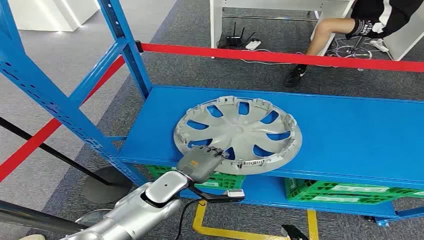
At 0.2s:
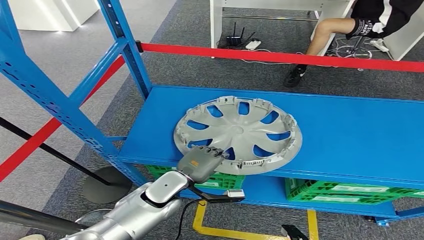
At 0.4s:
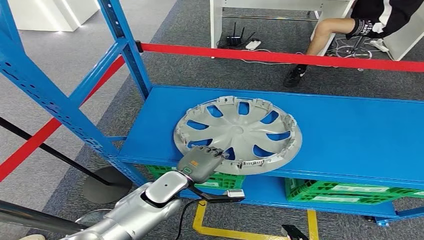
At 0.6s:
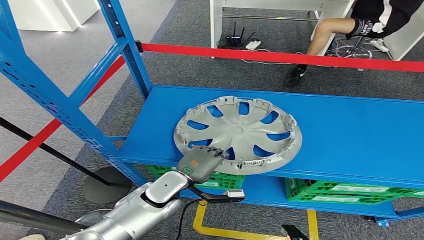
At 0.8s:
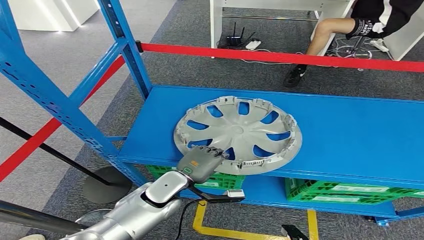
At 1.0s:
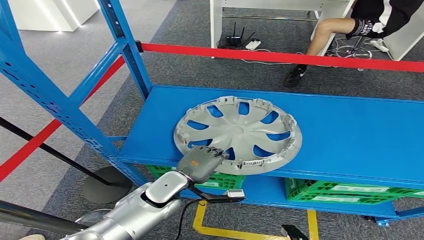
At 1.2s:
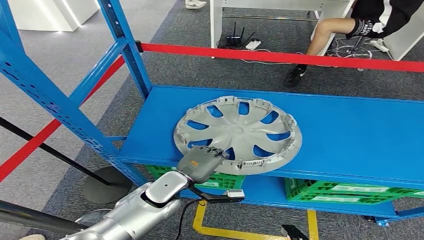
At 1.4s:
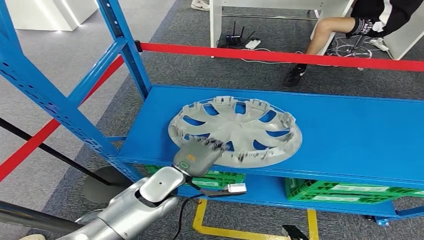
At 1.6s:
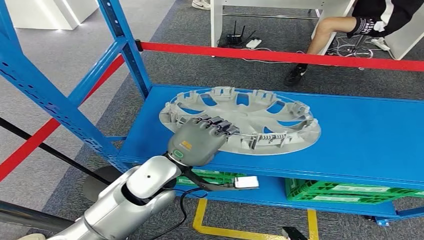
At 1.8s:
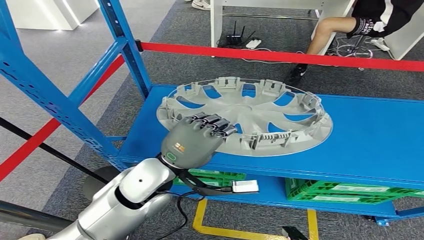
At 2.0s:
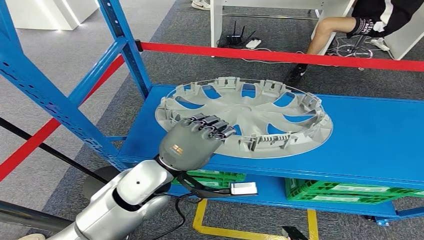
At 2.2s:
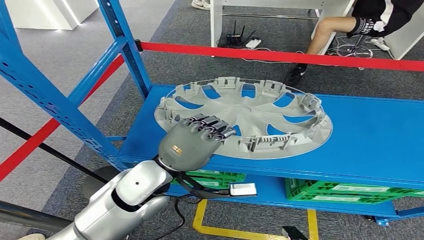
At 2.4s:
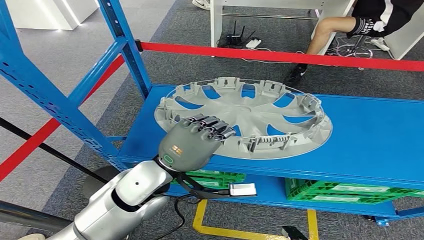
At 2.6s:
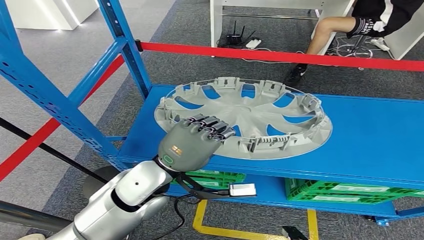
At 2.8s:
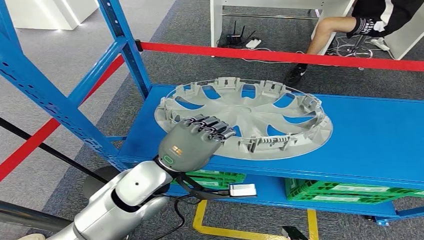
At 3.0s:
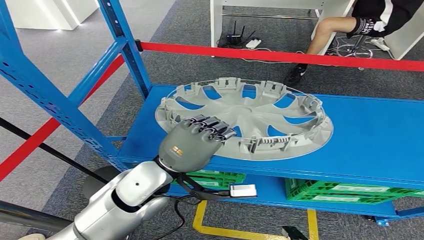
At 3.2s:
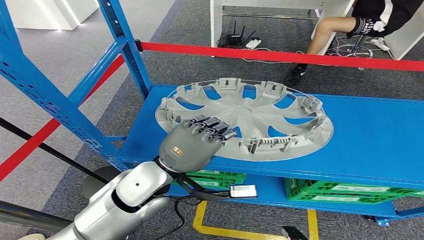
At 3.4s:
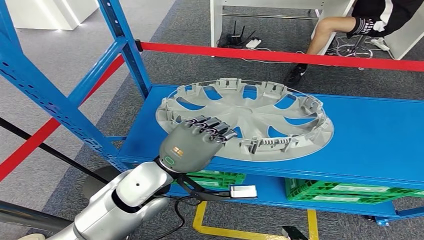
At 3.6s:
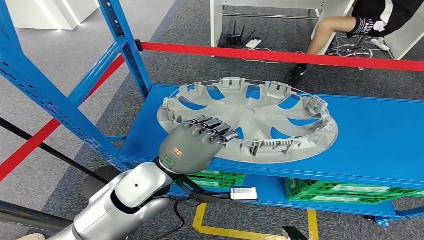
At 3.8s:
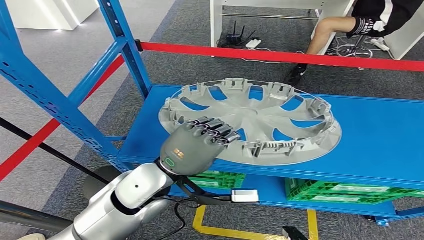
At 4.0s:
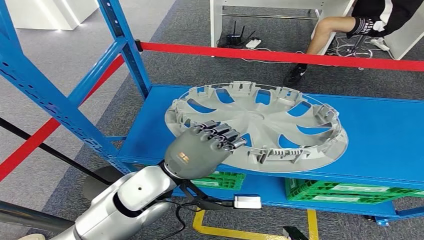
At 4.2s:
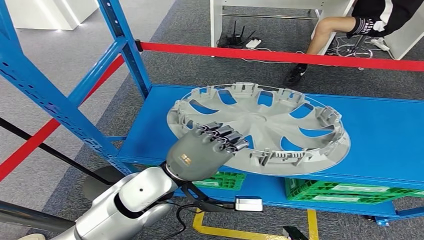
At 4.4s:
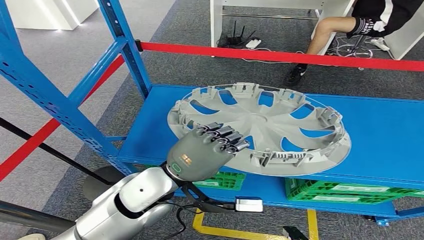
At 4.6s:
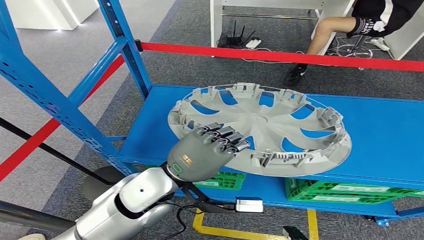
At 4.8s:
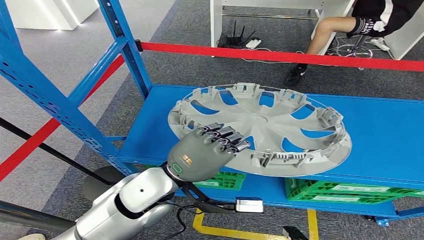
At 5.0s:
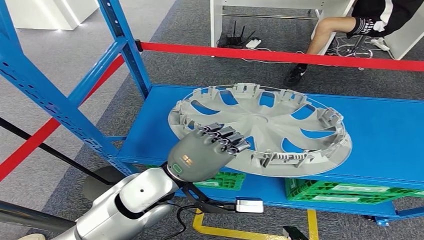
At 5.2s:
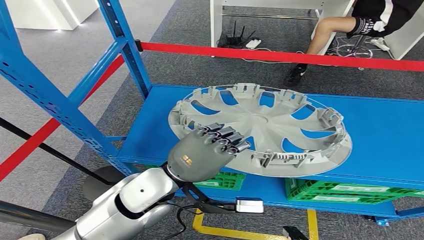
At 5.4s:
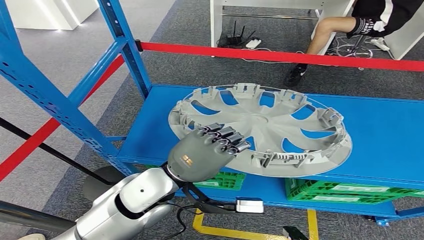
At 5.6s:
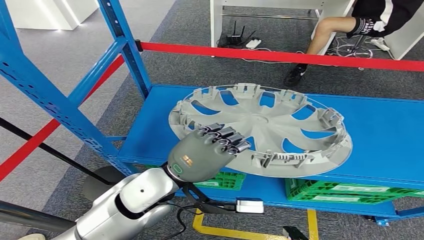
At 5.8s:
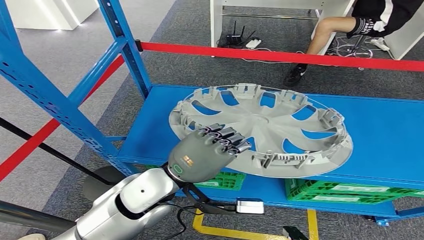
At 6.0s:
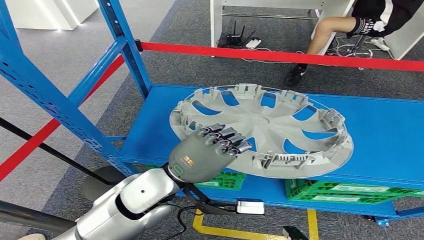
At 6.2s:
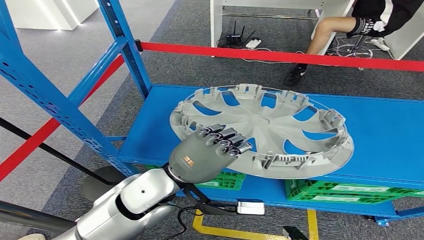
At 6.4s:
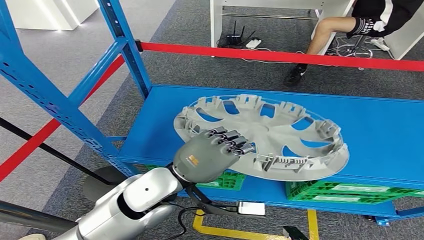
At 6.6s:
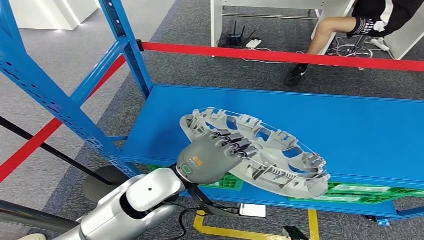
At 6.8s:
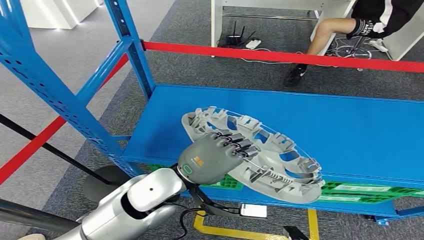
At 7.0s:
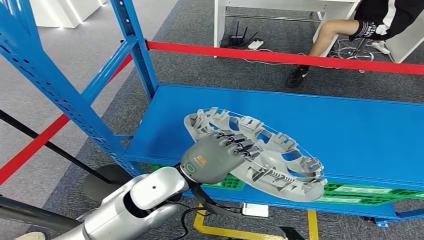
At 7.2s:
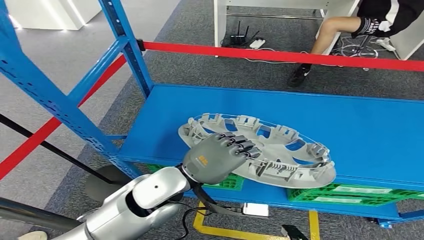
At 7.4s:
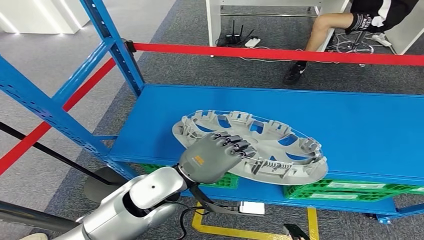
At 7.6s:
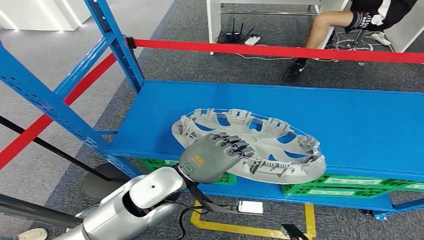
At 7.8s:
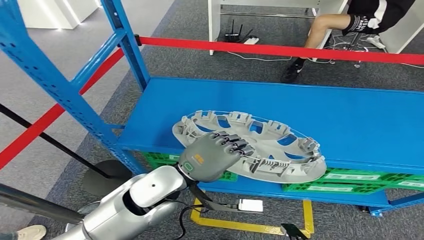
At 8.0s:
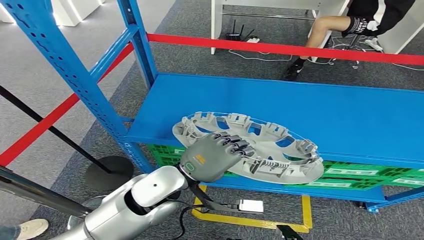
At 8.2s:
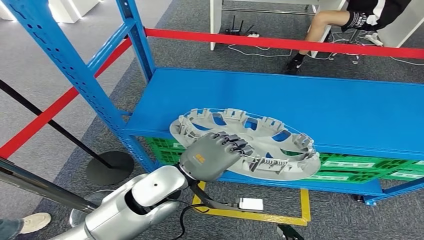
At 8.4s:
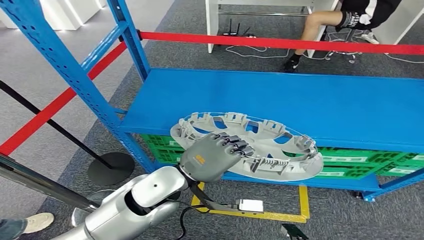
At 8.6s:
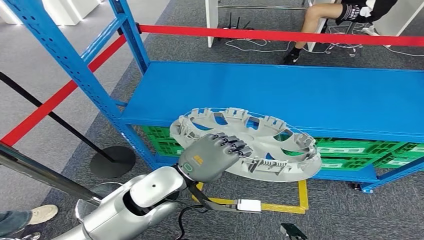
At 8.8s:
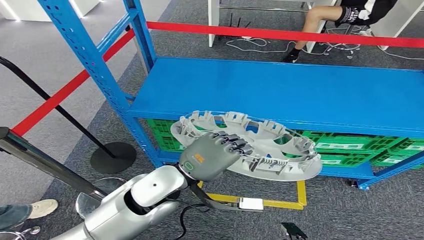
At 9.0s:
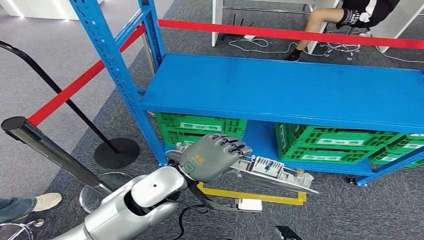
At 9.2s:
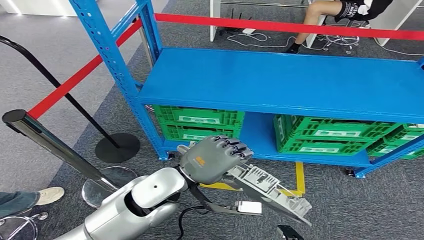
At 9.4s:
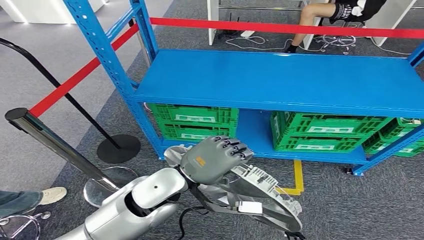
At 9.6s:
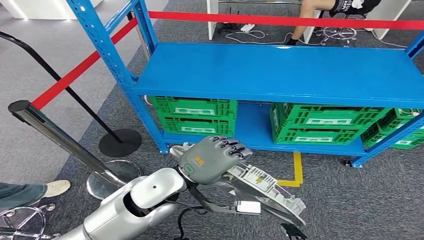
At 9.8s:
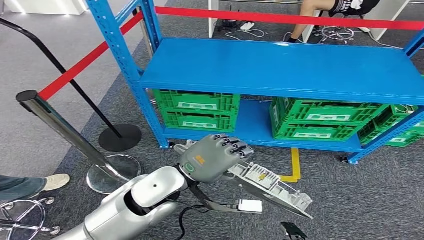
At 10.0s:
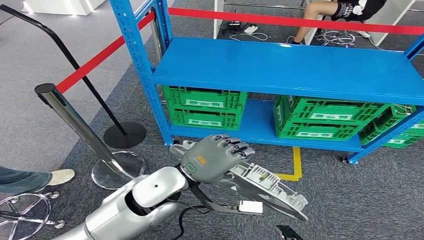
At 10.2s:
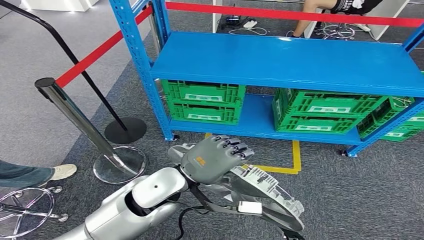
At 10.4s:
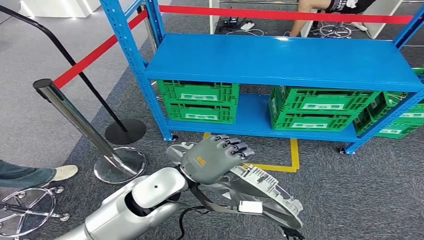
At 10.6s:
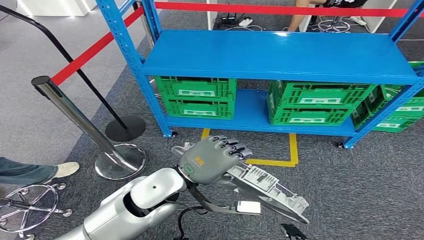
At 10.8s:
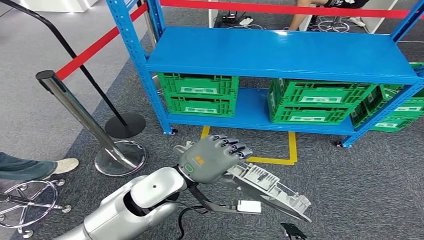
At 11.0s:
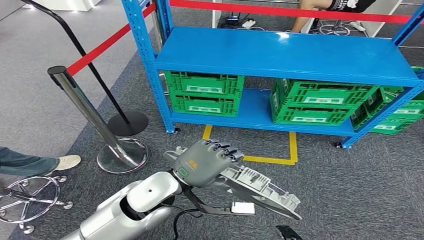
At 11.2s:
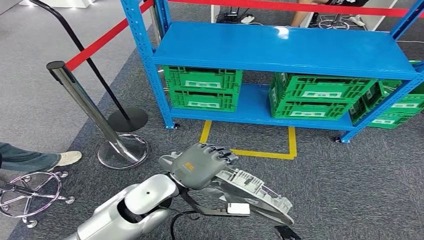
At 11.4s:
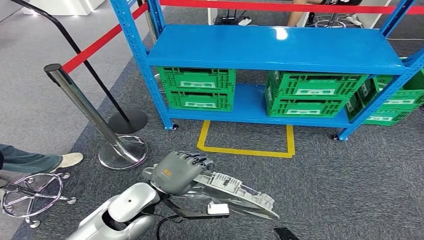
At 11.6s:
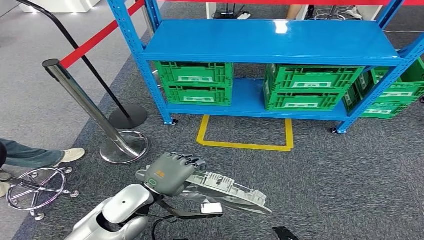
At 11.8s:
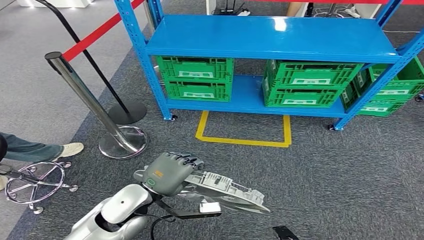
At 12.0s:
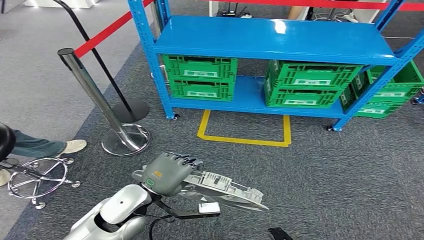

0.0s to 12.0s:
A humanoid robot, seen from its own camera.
Step, 0.0s to 5.6s: Pick up the small component from the shelf.
1.6s to 4.4s: The hands make only small movements.
4.4s to 6.0s: Both hands stay put.

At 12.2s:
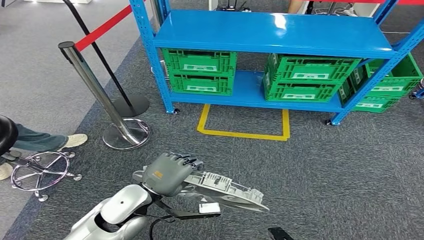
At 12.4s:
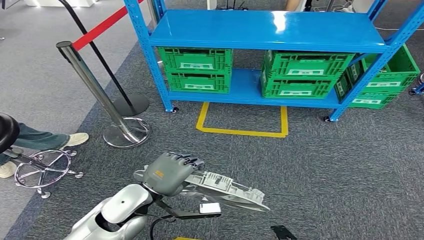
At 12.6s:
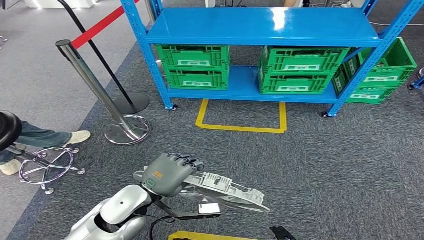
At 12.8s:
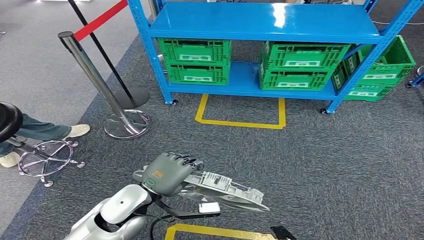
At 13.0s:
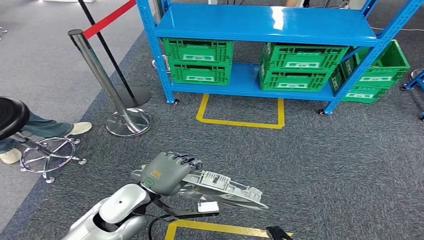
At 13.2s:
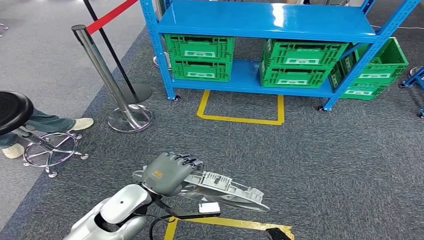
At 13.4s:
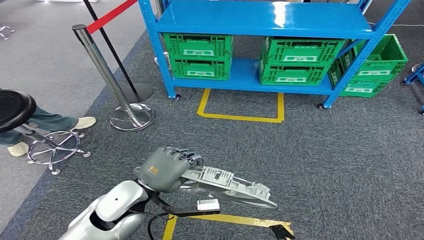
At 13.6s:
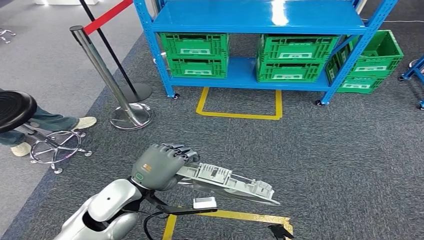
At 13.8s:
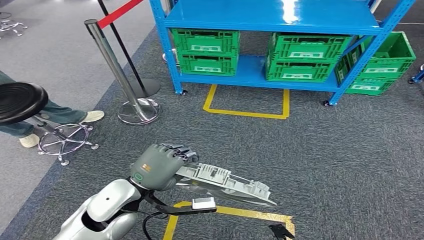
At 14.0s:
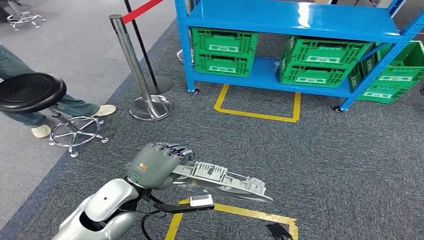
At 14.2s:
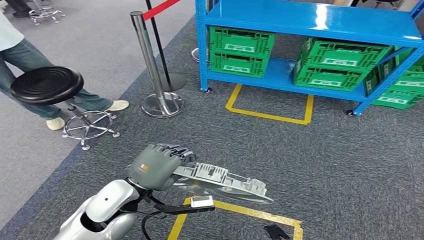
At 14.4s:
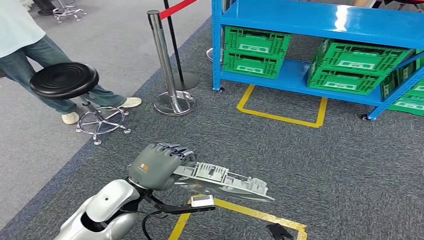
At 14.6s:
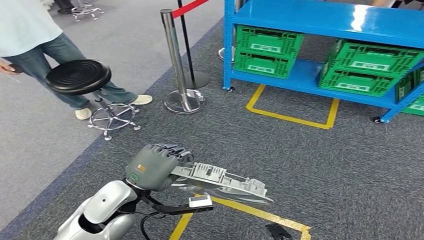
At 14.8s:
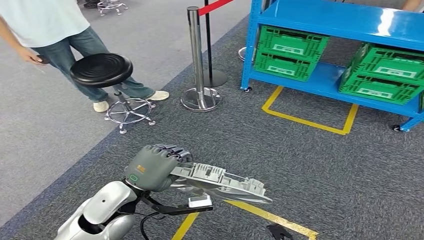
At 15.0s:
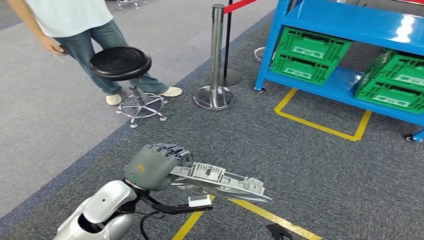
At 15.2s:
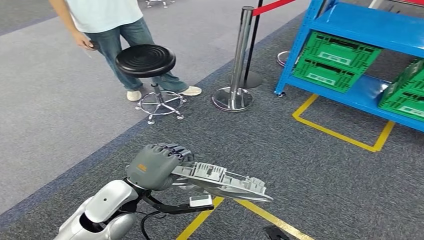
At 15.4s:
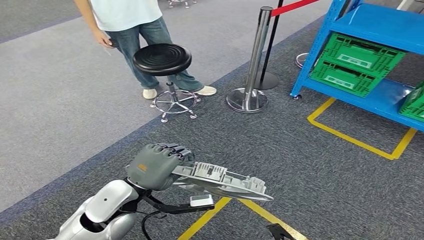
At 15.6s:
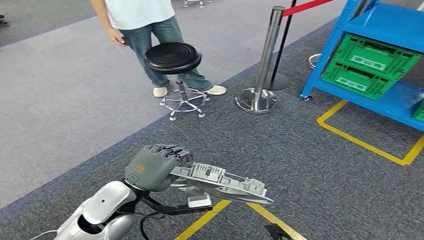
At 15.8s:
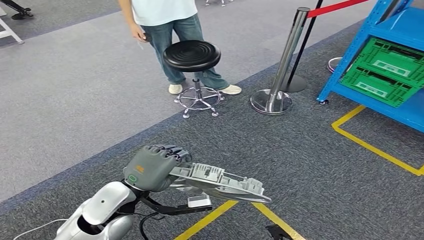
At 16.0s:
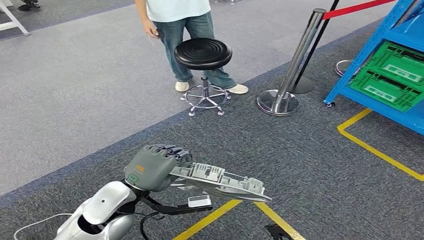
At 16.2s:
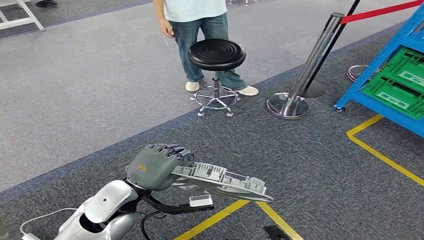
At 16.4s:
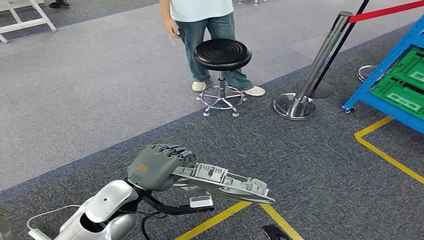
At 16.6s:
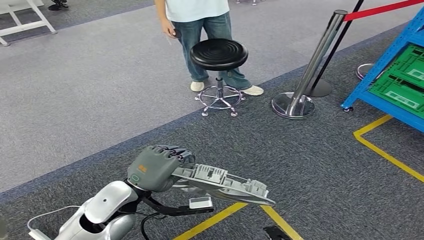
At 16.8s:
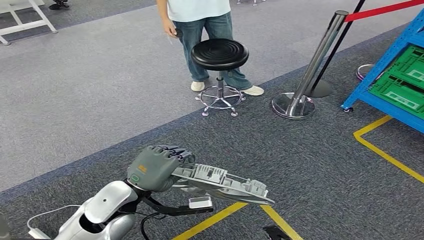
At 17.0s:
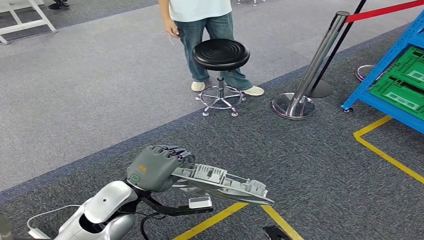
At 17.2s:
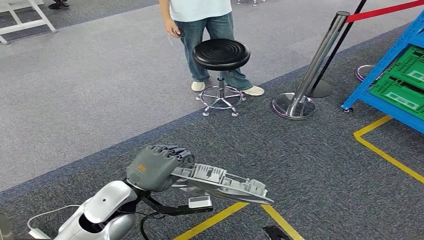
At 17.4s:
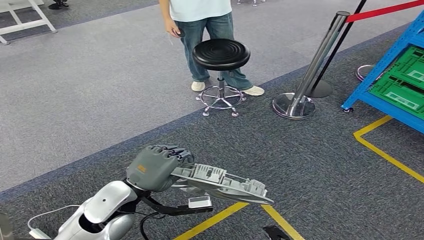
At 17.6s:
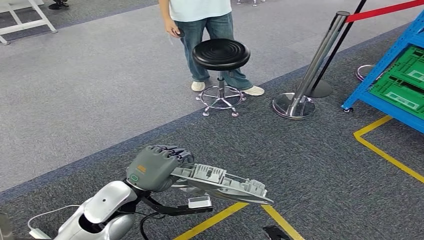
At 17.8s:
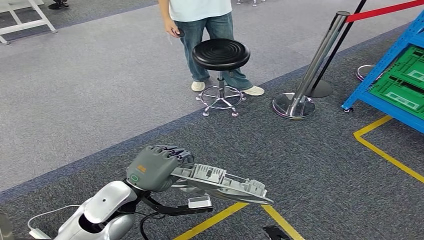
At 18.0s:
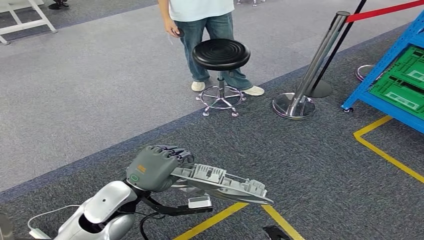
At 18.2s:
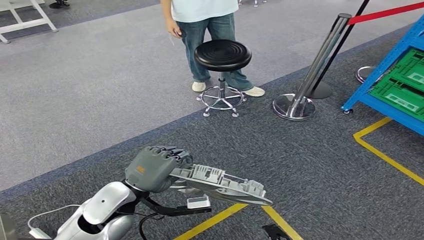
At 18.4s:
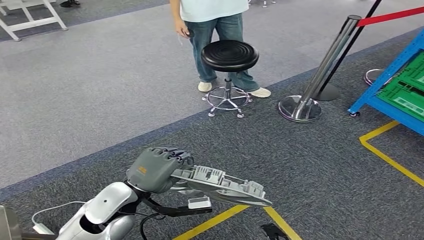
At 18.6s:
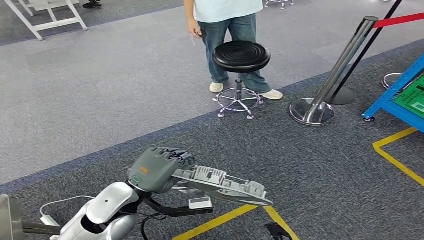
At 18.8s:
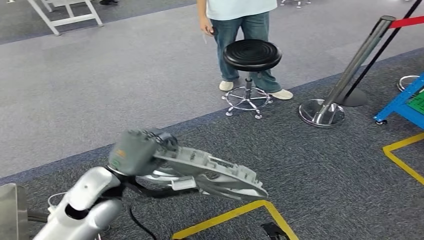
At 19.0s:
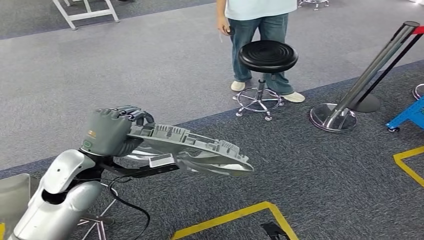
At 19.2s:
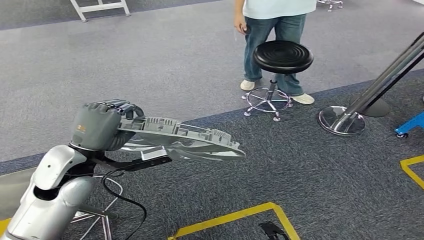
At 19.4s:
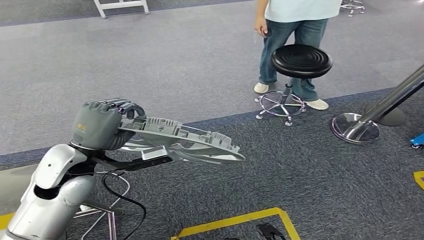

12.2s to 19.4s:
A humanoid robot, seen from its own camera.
16.6s to 18.0s: Both hands stay put.
